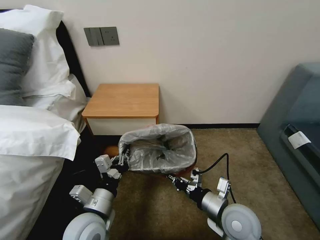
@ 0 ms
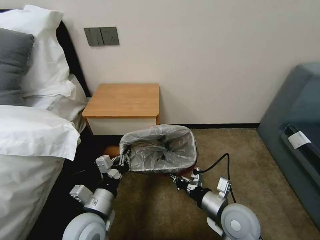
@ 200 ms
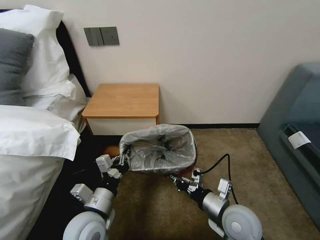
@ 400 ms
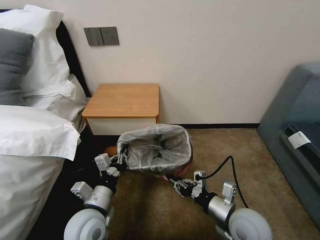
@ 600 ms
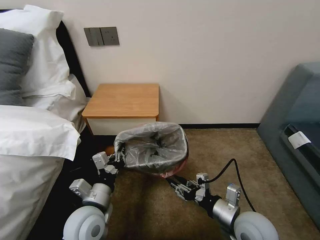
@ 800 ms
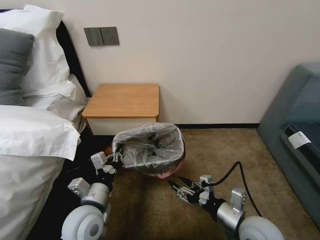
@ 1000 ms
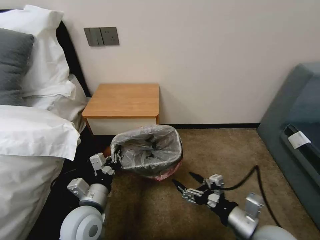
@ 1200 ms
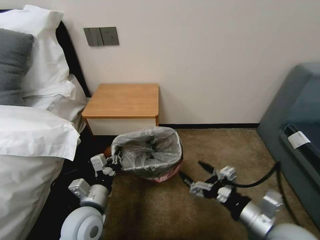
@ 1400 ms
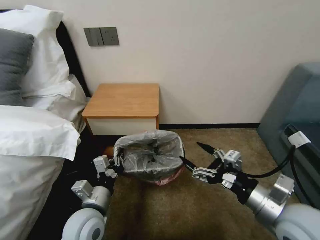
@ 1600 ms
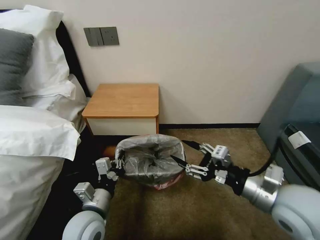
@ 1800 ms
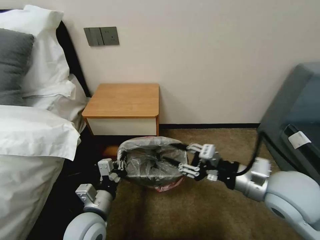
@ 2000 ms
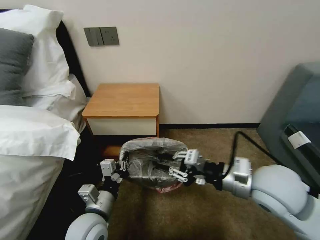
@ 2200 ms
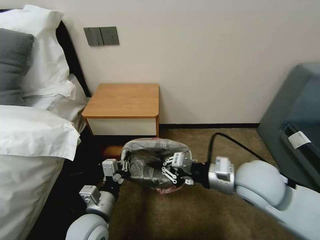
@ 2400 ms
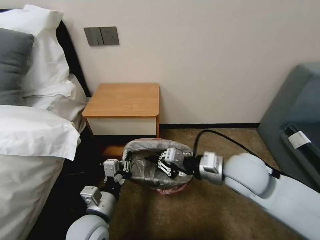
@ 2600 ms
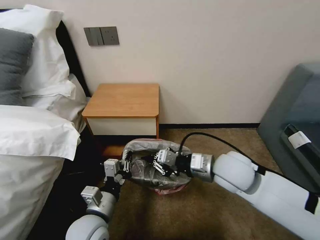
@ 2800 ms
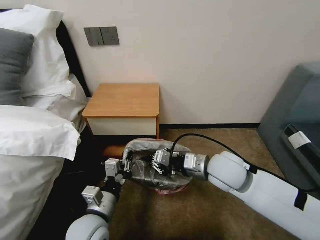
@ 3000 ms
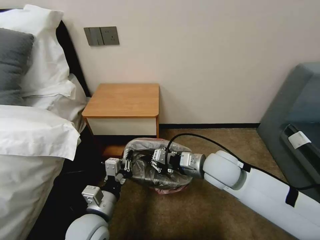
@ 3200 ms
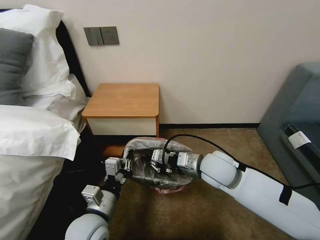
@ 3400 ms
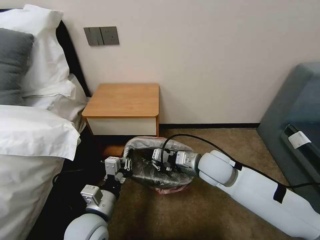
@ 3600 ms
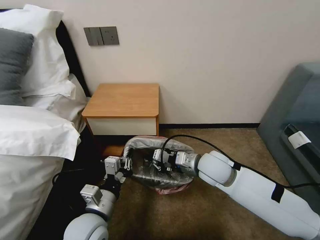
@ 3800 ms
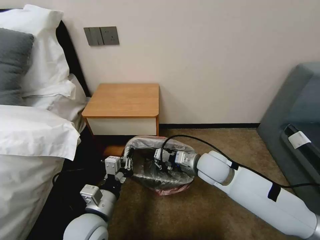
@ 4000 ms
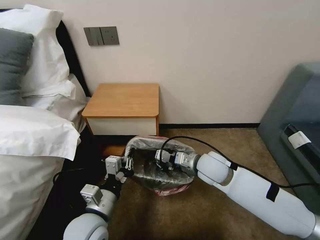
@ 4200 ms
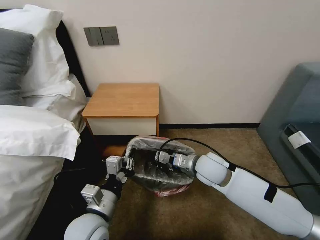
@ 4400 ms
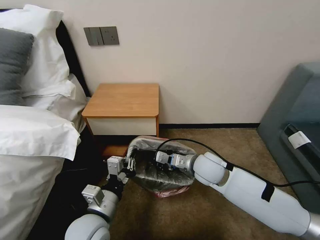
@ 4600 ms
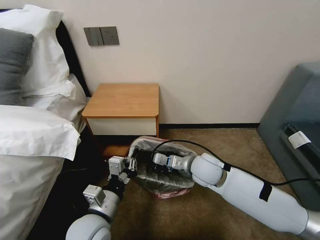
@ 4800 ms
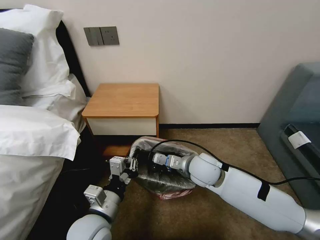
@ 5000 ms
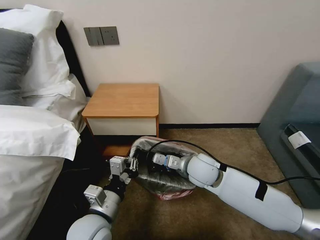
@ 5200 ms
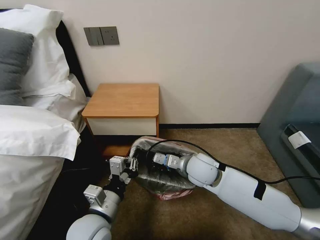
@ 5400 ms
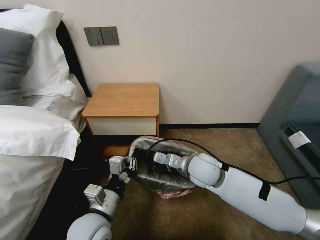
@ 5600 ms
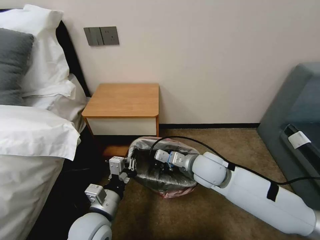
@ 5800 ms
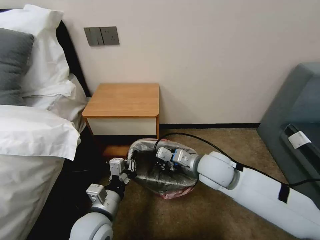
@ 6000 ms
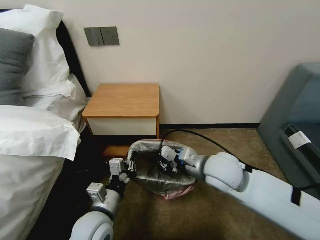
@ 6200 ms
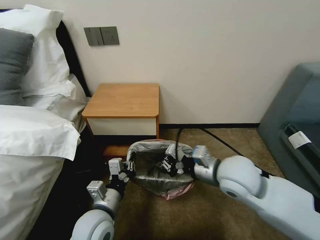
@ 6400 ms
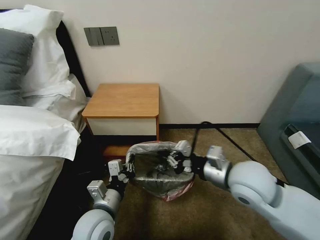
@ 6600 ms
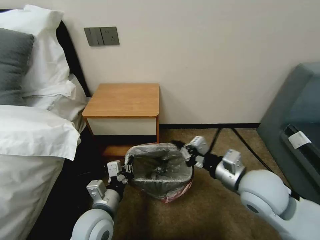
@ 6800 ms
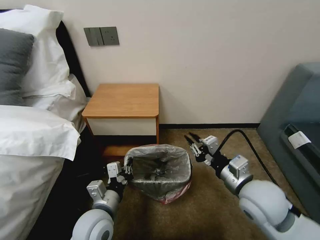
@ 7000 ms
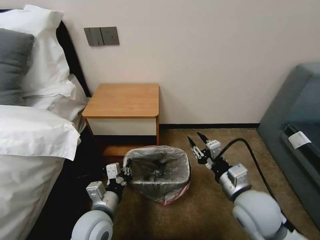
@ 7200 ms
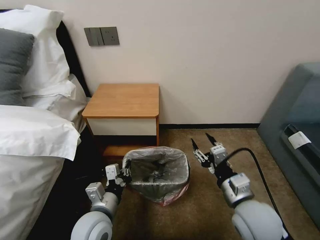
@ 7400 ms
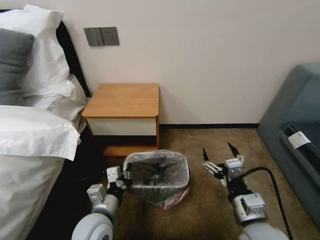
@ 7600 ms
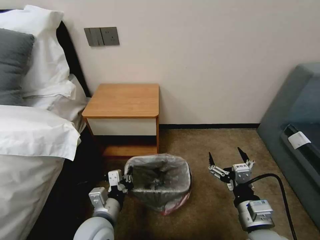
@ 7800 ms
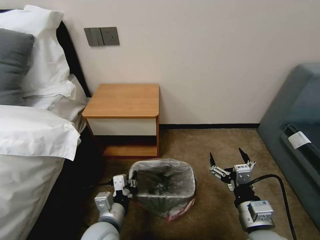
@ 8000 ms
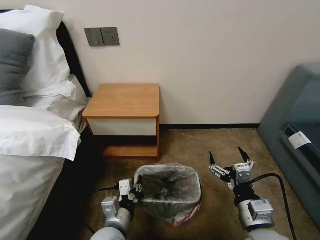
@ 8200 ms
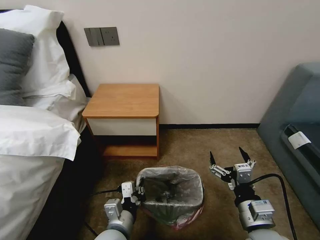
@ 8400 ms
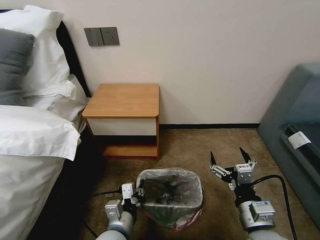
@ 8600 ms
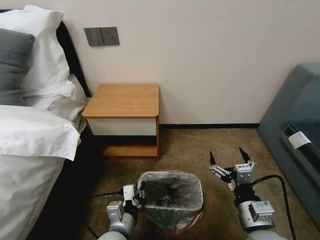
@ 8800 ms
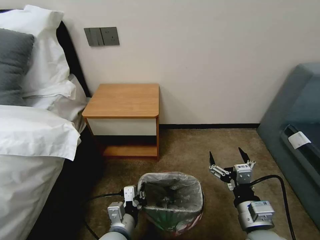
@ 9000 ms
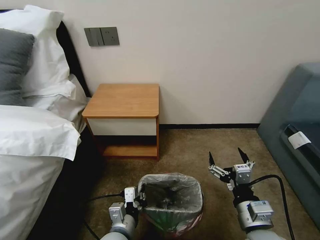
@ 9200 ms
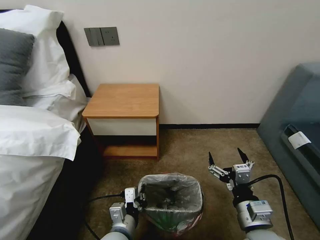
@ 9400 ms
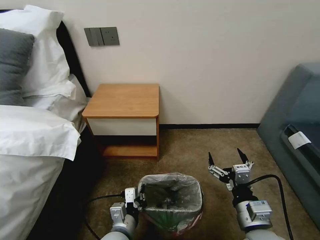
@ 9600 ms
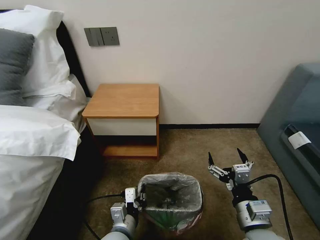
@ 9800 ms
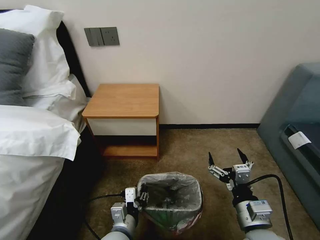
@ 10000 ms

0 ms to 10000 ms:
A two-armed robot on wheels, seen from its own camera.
Task of the whole recording: Pick up the garbage bag from the table and place it over the trash can.
0 ms to 1400 ms: The right gripper travels upward, to the right and backward by some 10 cm, and opens up.
1400 ms to 2800 ms: The right gripper heads forward and to the left, covering roughly 15 cm, and closes its fingers.
2800 ms to 4200 ms: The right gripper travels downward by approximately 10 cm.
4200 ms to 5800 ms: The grippers stay close to where they were, moving slightly.
5800 ms to 7200 ms: The right gripper moves backward and to the right, roughly 15 cm, and opens up.
7200 ms to 8600 ms: The right gripper moves backward, roughly 10 cm, and opens up, while the left gripper shifts by some 5 cm.
8600 ms to 10000 ms: The left gripper opens up.

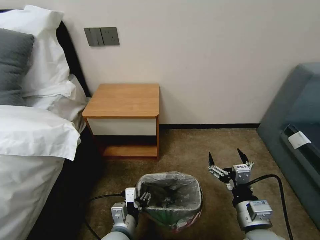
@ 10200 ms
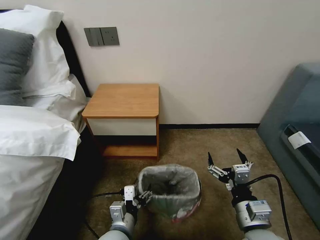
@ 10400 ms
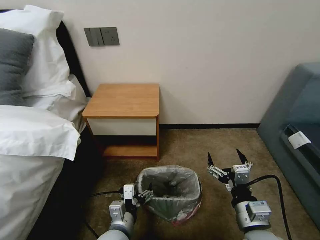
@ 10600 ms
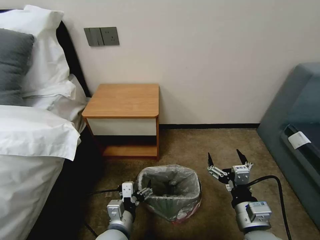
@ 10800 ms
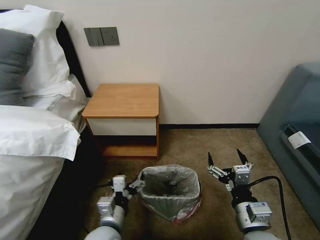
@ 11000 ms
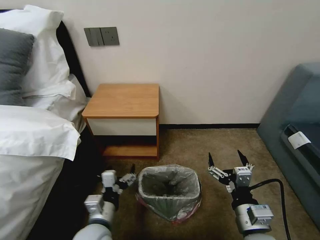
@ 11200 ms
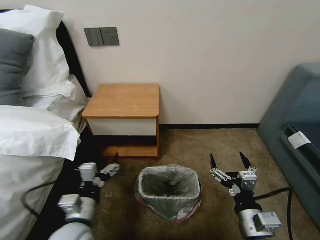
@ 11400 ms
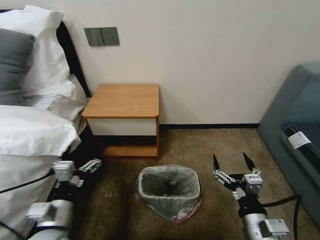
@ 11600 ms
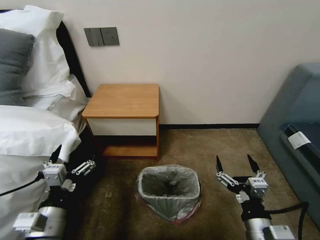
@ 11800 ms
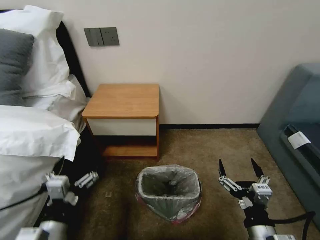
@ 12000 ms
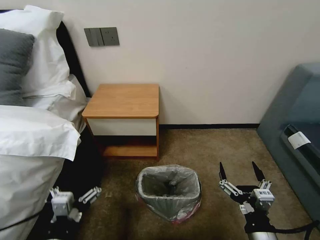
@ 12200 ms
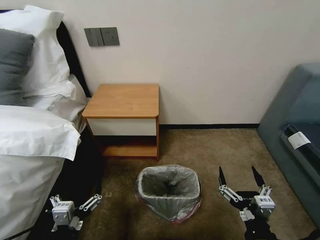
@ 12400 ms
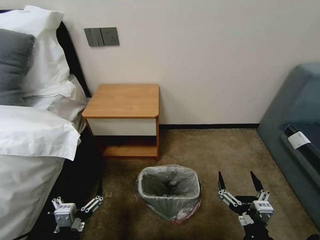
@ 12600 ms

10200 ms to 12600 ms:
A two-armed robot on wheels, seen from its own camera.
Task of the whole recording: Pick up the garbage bag from the table and place it over the trash can.
10200 ms to 11400 ms: The left gripper is displaced to the left and upward by some 10 cm, and opens.
11400 ms to 12600 ms: The right gripper is displaced backward by roughly 5 cm; the left gripper travels backward by about 10 cm.
